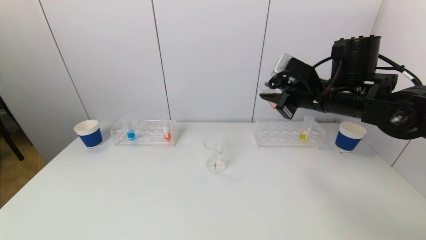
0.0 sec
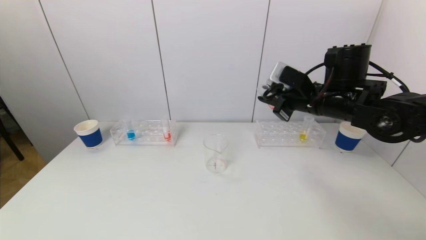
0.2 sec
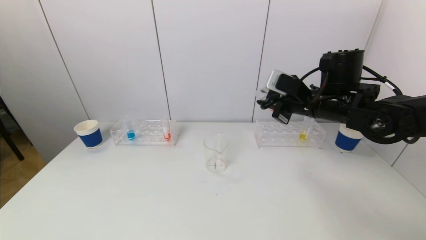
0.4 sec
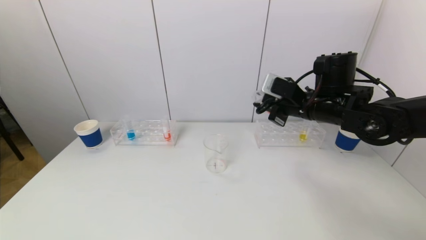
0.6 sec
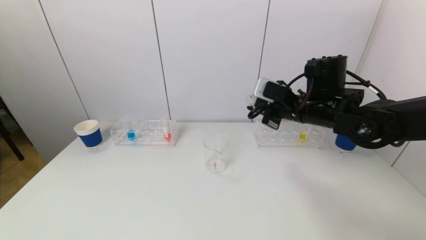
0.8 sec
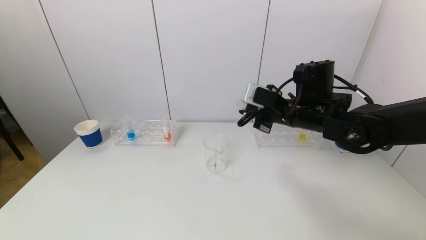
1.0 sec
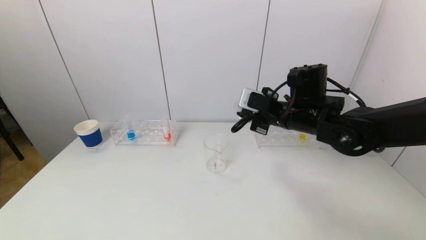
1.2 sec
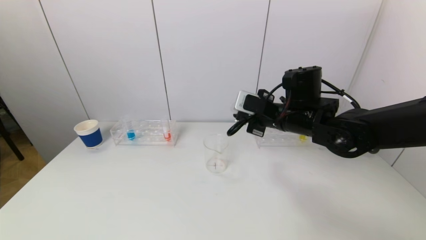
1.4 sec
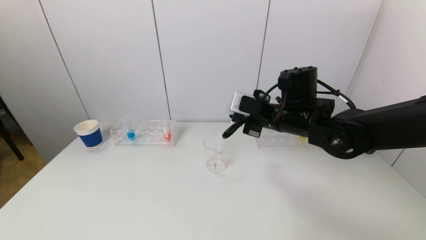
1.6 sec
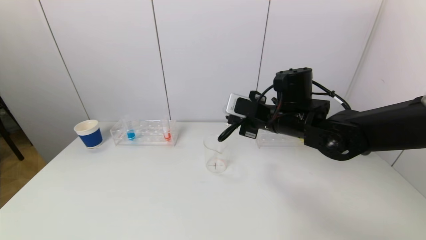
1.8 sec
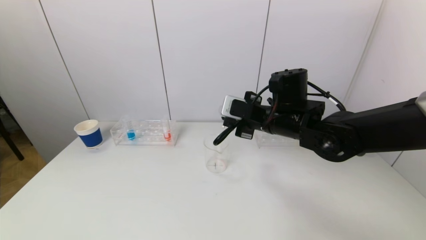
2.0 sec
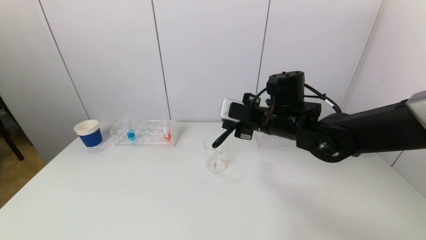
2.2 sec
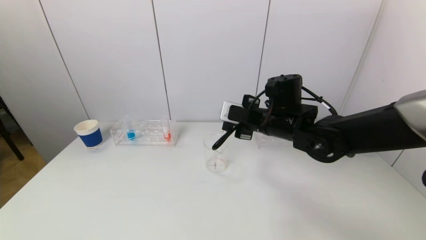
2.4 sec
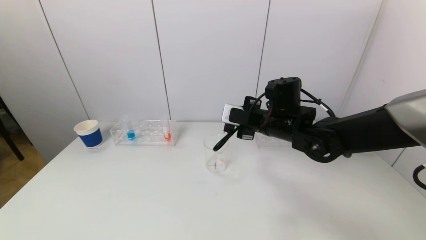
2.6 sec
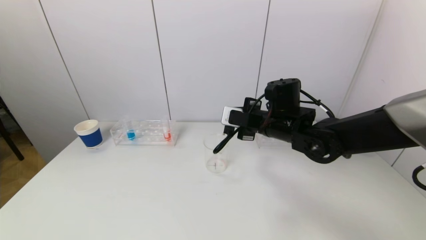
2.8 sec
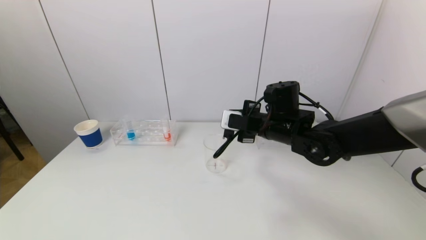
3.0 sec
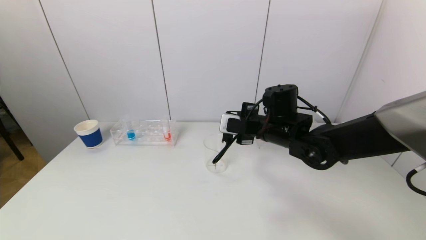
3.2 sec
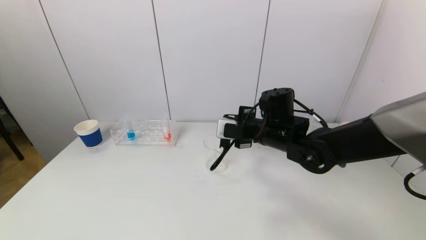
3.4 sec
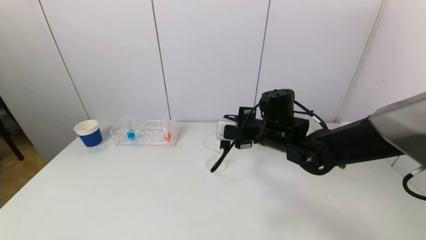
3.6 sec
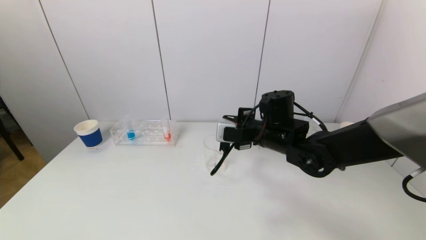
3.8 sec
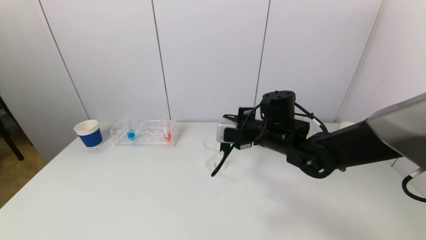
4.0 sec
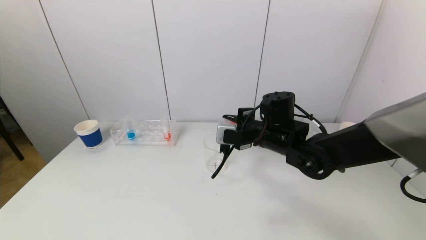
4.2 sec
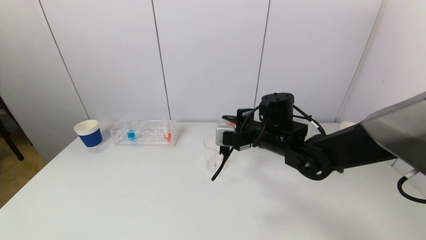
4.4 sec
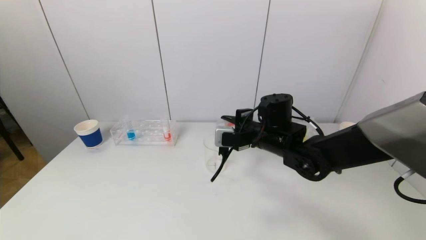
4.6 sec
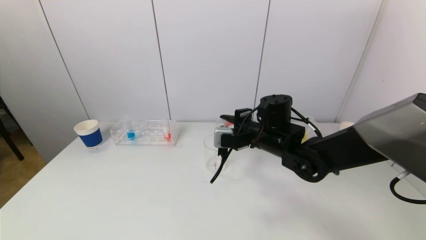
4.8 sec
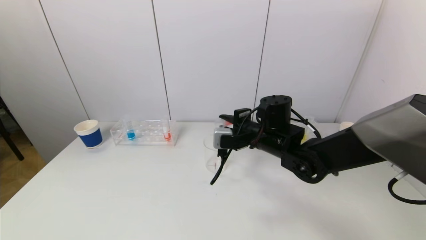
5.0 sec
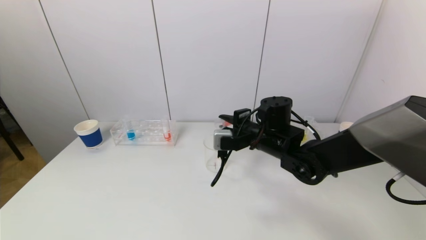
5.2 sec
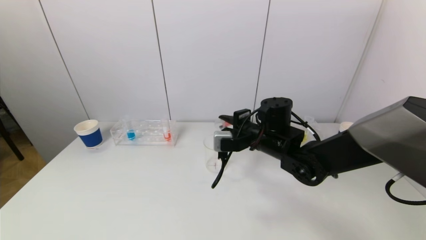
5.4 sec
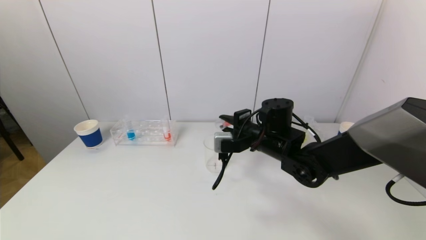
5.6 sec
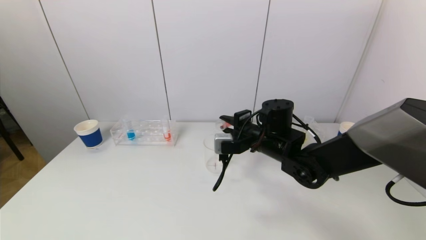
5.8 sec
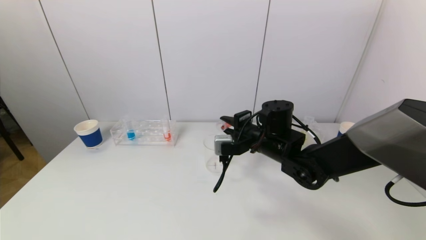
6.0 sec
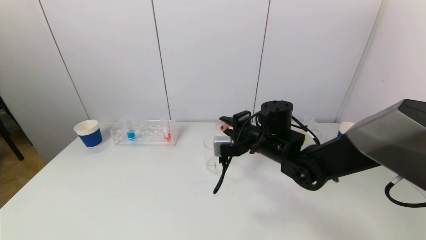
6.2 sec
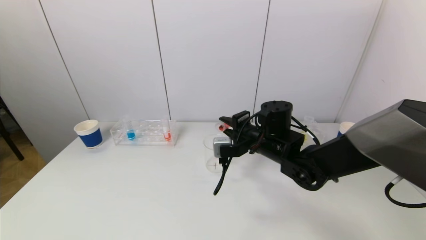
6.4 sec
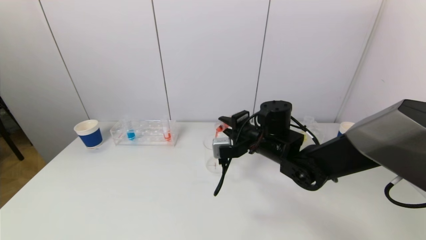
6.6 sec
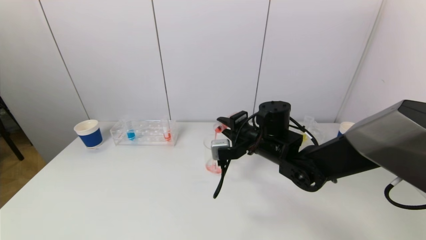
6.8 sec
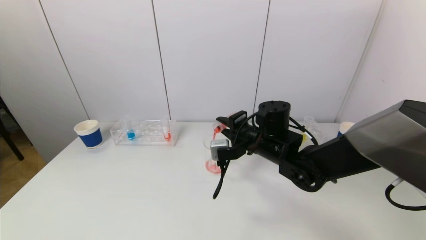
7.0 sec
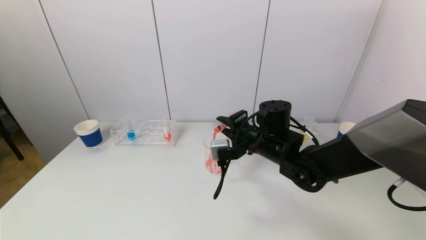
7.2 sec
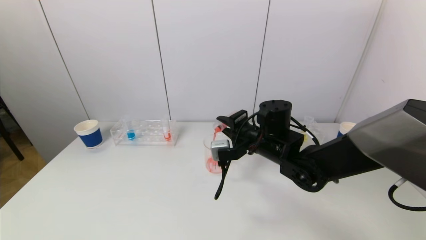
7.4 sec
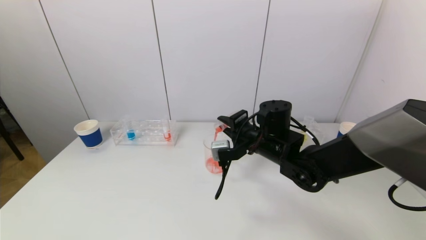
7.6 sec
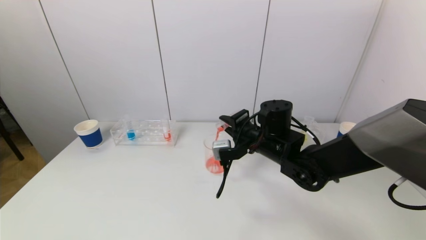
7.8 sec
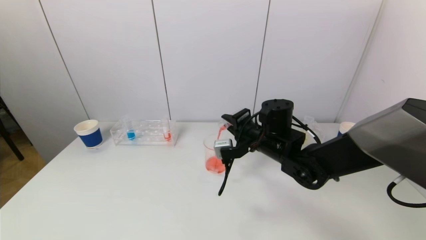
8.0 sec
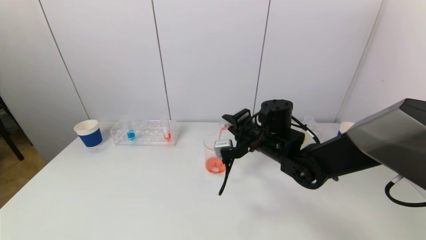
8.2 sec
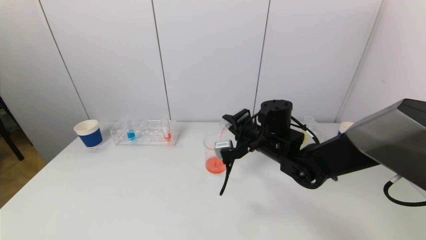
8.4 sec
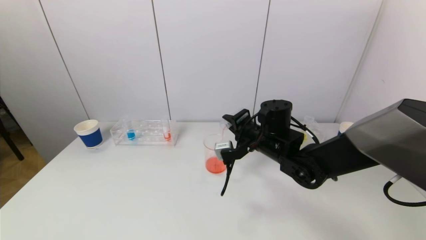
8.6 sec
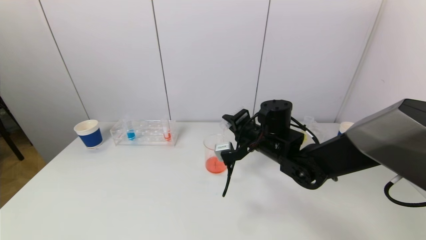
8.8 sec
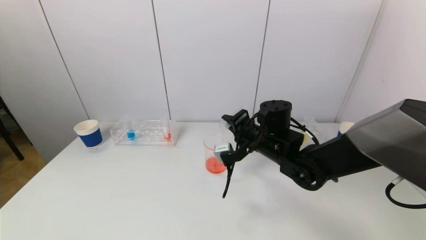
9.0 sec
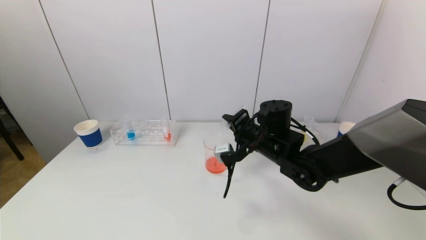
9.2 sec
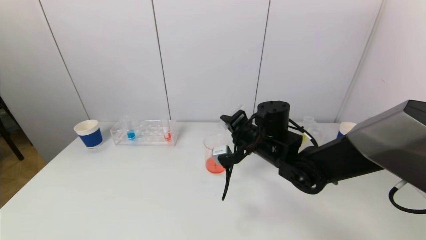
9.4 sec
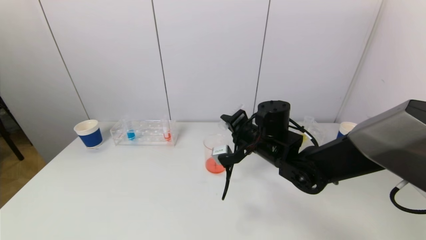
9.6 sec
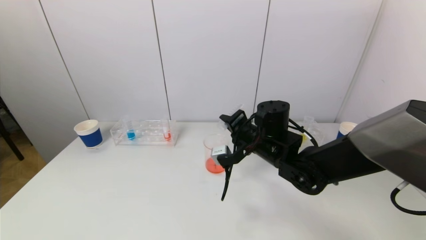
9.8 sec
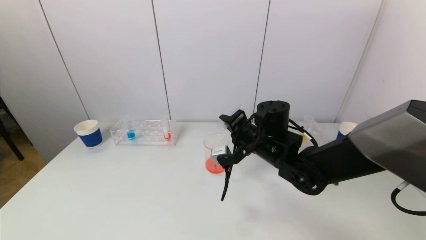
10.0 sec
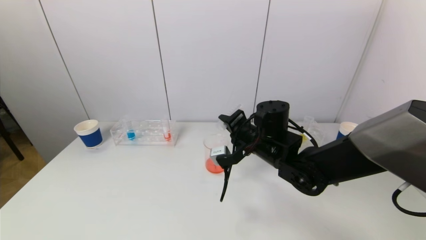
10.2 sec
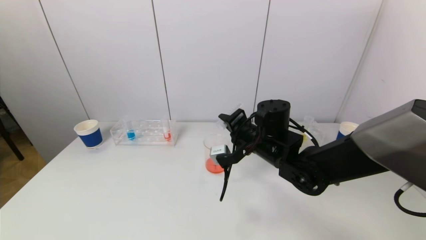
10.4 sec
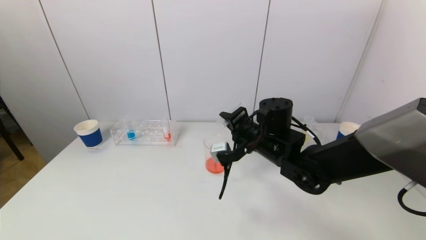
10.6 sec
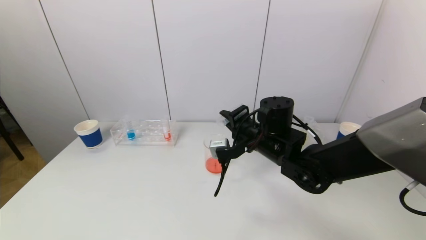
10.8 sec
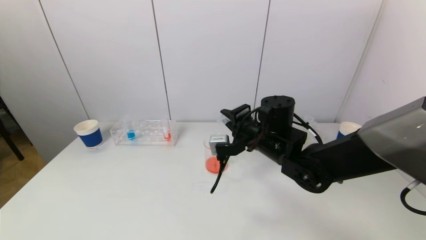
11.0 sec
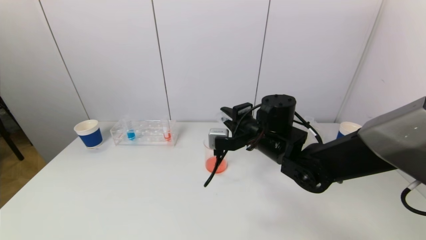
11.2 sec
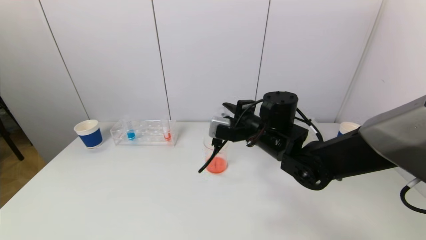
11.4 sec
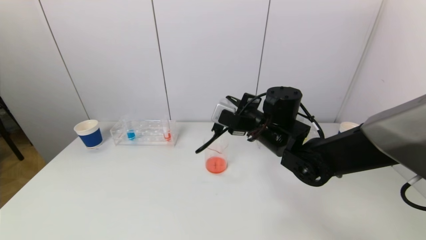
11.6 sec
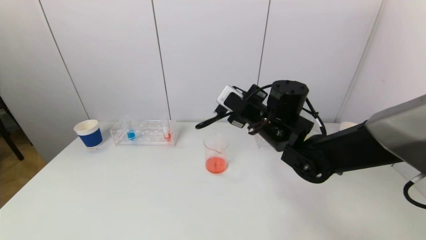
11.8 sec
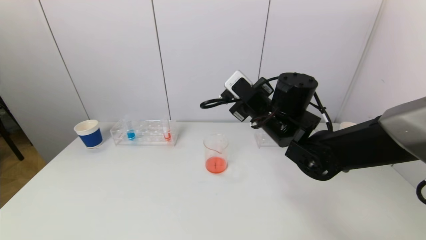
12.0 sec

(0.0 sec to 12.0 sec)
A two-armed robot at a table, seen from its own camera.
Task of the whole recording: pick up a test tube with pigment on left test tube rack and a test tube with pigment on right test tube rack by grippers and pour them into the beaker.
Step, 0.0 sec - 9.6 sec: Pour the red reagent into the graduated cylinder with the right gripper.
0.0 sec - 1.6 sec: The right gripper is displaced to the left by roughly 5 cm.
1.6 sec - 4.4 sec: There are only small adjustments of the grippers.
4.4 sec - 6.0 sec: There are only small adjustments of the grippers.
6.0 sec - 7.6 sec: There are only small adjustments of the grippers.
7.6 sec - 10.4 sec: There are only small adjustments of the grippers.
10.4 sec - 12.0 sec: The right gripper moves upward, approximately 5 cm.

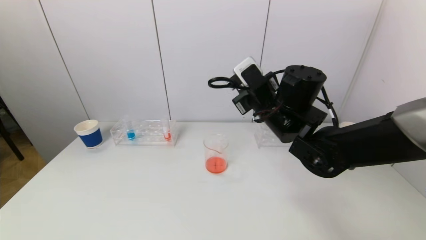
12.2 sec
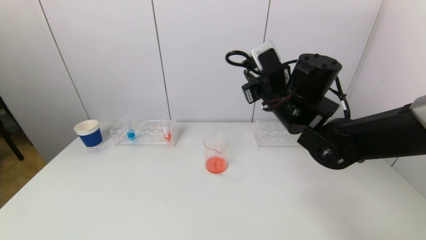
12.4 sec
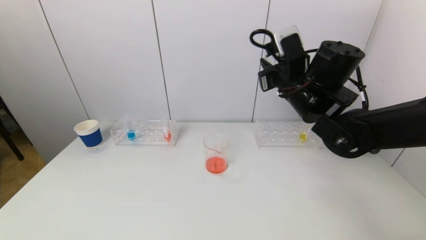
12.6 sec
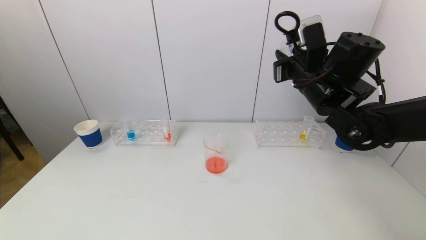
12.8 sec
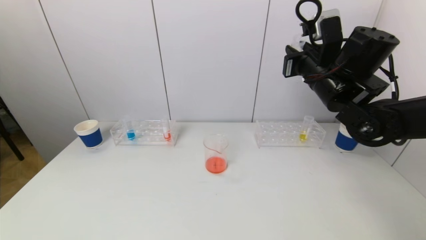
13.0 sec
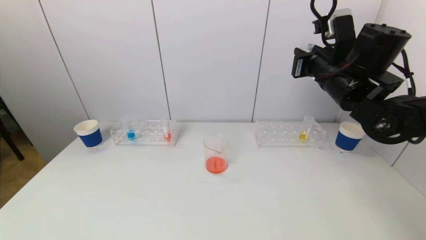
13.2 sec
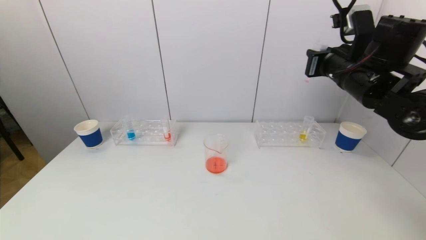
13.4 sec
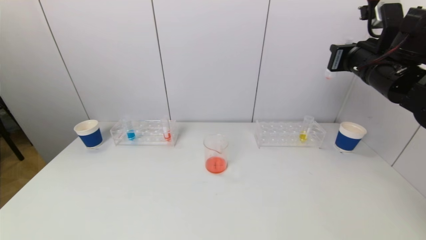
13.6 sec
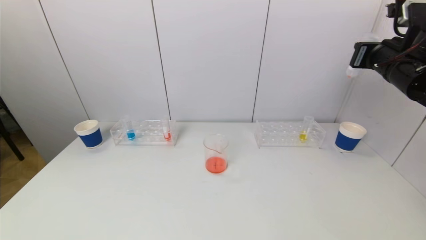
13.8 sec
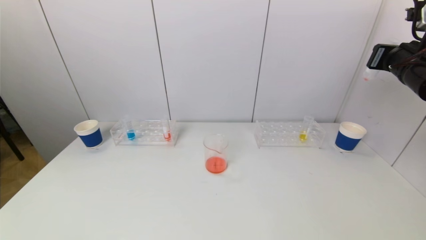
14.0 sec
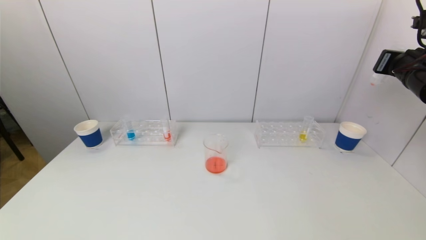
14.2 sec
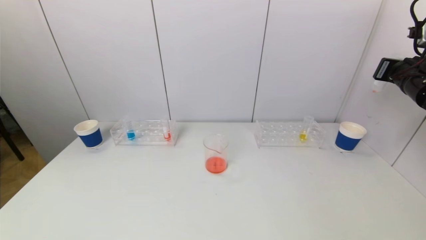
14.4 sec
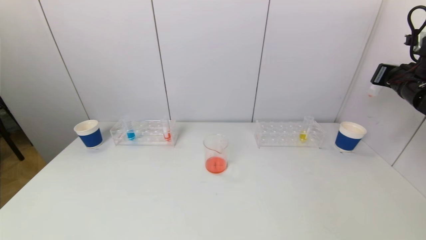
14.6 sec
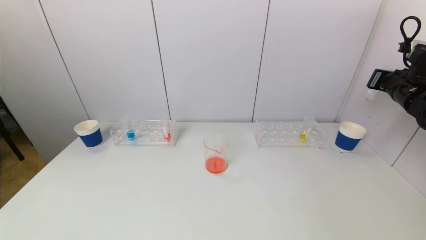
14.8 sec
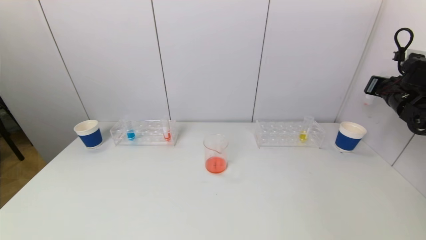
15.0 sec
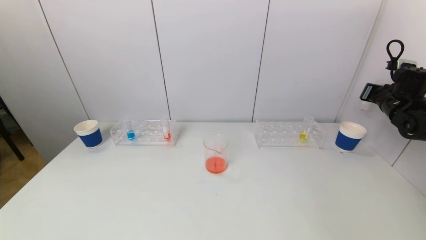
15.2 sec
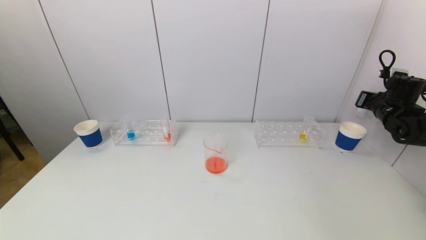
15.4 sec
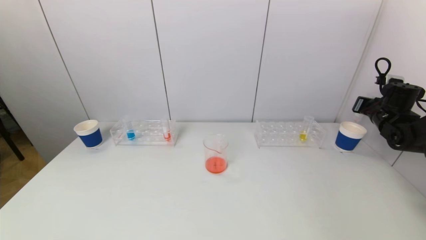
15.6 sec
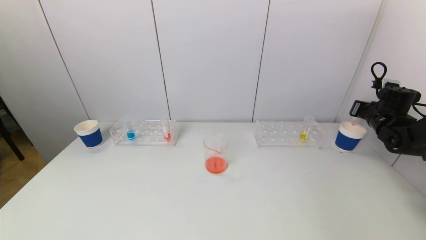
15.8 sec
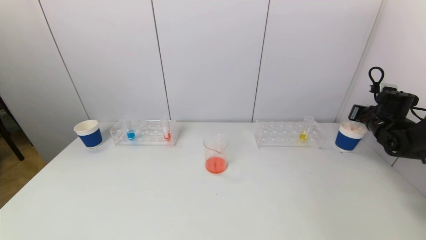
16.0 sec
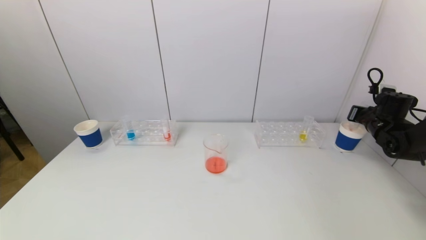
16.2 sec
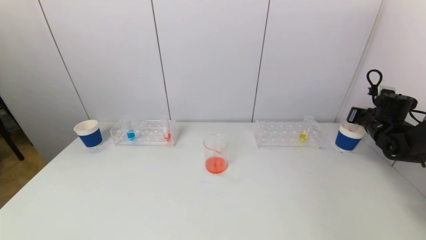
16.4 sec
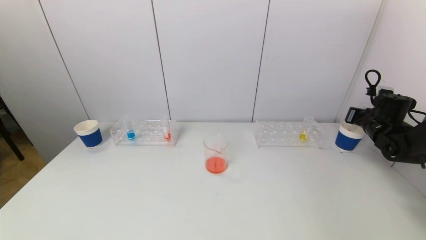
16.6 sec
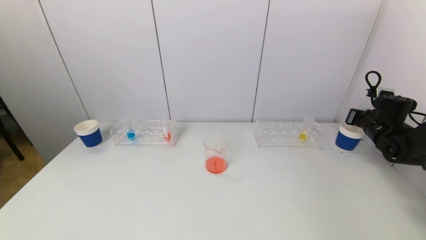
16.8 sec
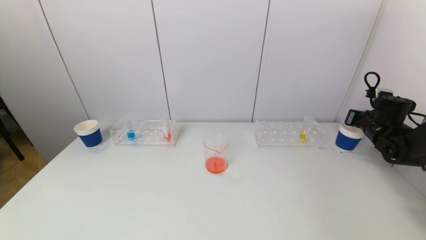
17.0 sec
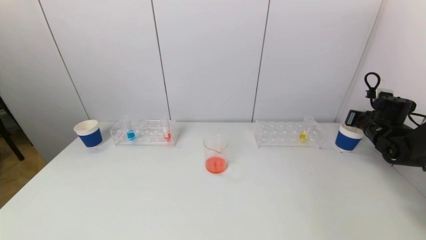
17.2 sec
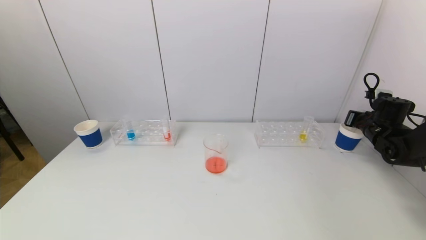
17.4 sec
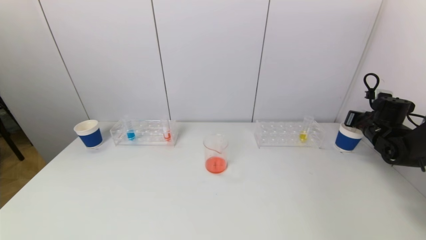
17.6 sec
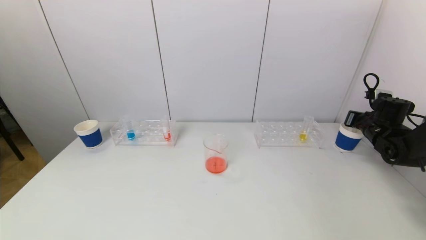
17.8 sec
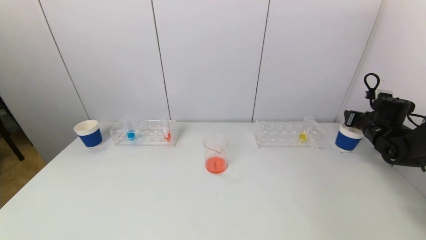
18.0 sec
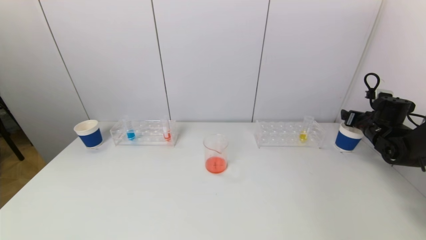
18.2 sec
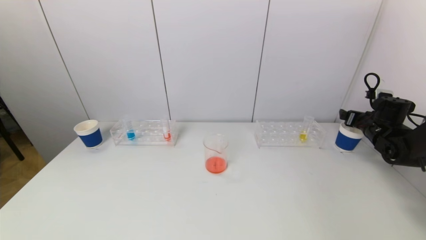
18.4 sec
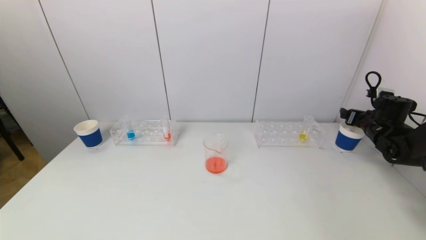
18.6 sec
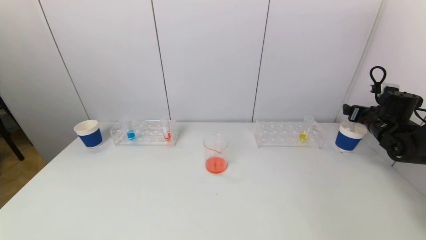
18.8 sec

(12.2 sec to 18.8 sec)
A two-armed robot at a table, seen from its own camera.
Task of the whole recording: pick up a test tube with pigment on left test tube rack and a test tube with pigment on right test tube rack by grippers and pour them into the beaker.
12.2 sec - 13.8 sec: The right gripper is displaced to the right by some 20 cm.
13.8 sec - 15.4 sec: The right gripper travels downward, to the right and forward by approximately 20 cm.
15.4 sec - 17.2 sec: The right gripper moves some 5 cm.
17.2 sec - 18.8 sec: The right gripper opens.
